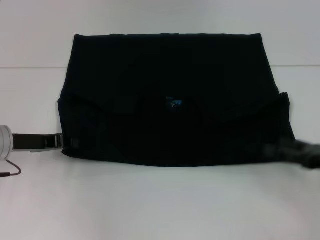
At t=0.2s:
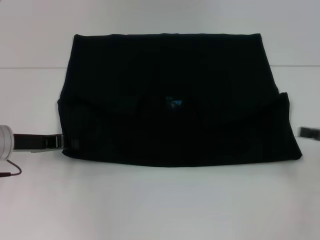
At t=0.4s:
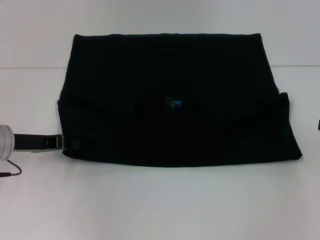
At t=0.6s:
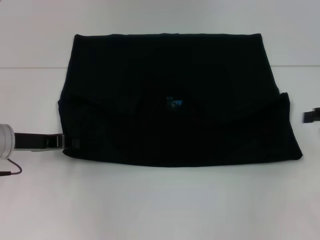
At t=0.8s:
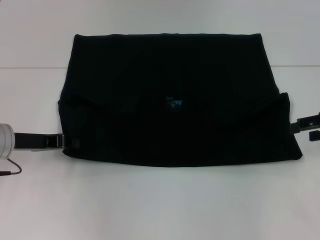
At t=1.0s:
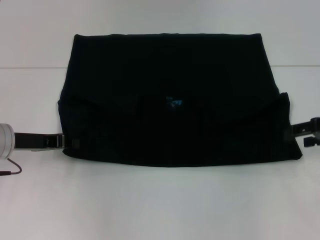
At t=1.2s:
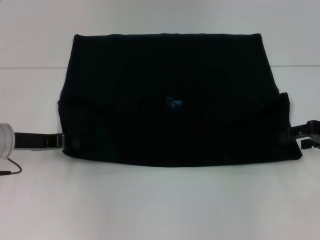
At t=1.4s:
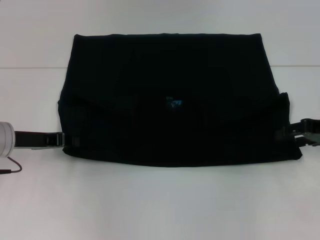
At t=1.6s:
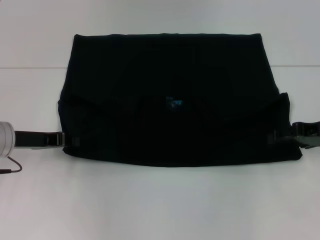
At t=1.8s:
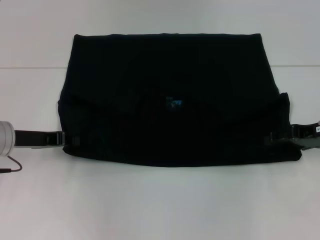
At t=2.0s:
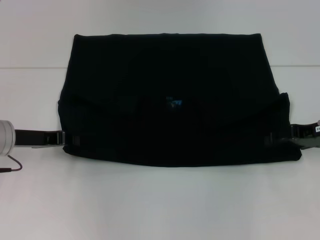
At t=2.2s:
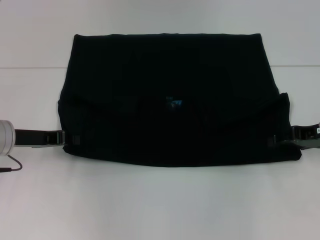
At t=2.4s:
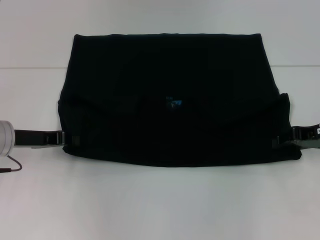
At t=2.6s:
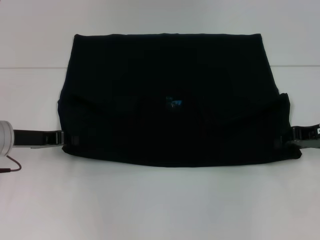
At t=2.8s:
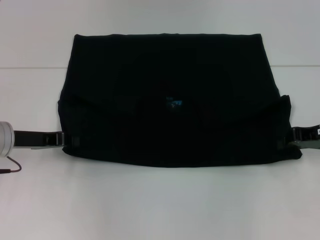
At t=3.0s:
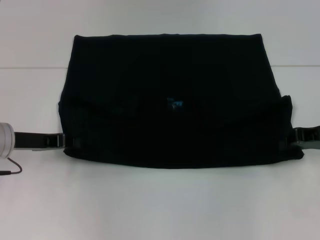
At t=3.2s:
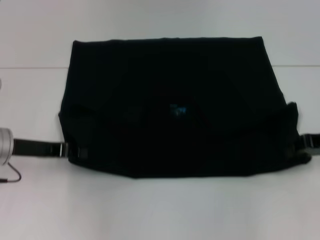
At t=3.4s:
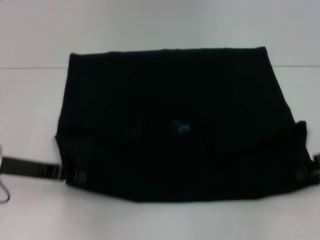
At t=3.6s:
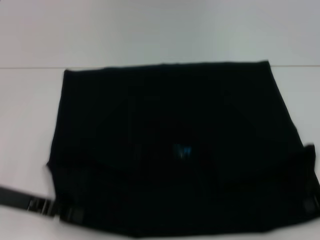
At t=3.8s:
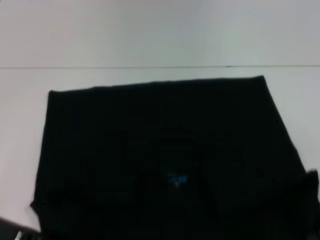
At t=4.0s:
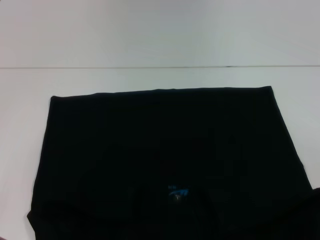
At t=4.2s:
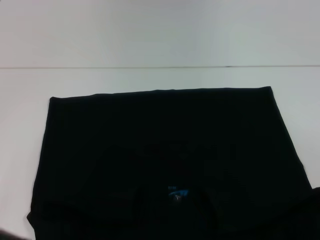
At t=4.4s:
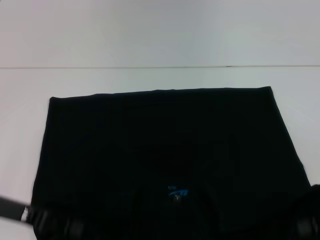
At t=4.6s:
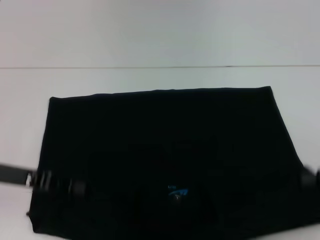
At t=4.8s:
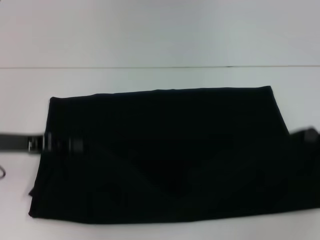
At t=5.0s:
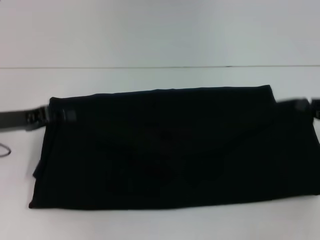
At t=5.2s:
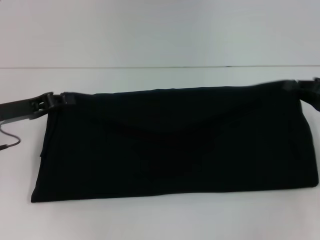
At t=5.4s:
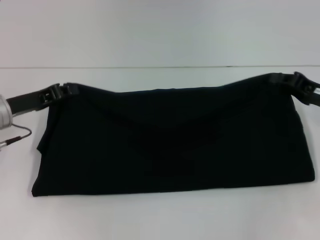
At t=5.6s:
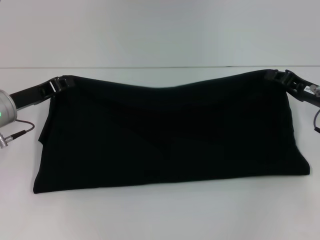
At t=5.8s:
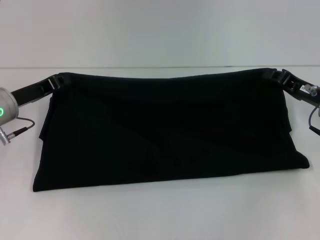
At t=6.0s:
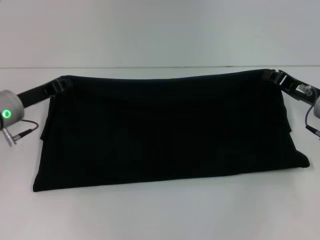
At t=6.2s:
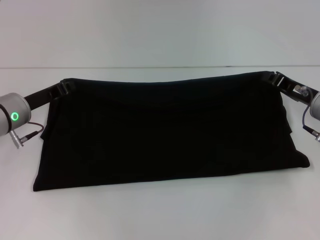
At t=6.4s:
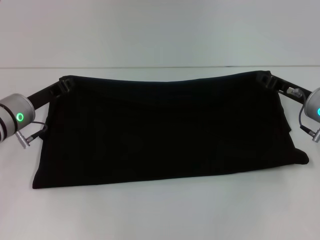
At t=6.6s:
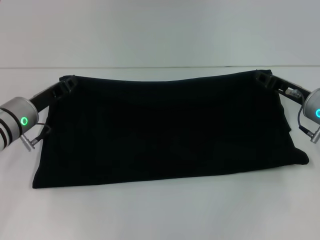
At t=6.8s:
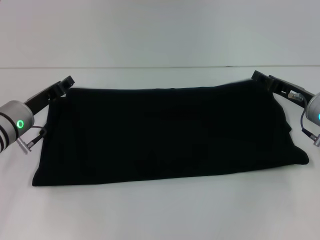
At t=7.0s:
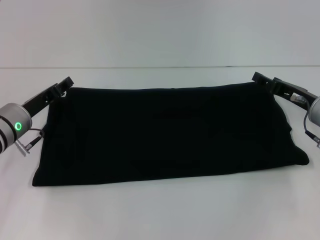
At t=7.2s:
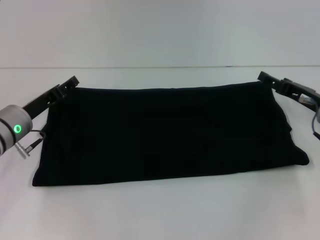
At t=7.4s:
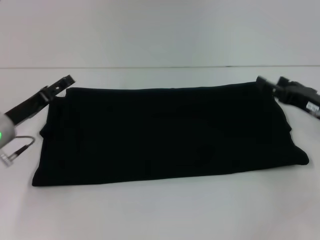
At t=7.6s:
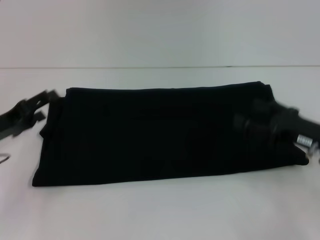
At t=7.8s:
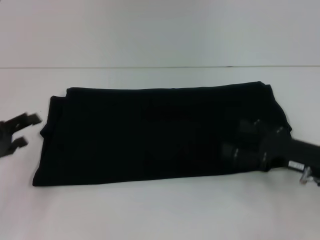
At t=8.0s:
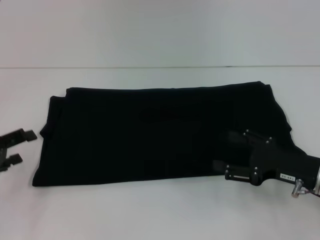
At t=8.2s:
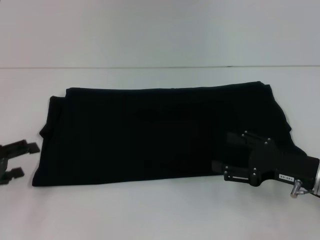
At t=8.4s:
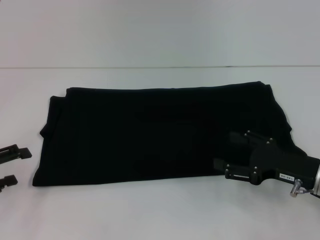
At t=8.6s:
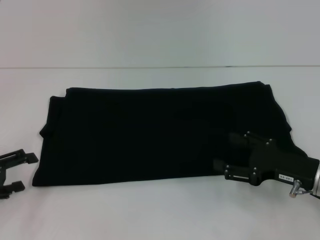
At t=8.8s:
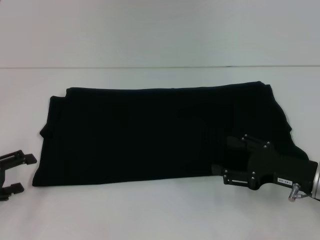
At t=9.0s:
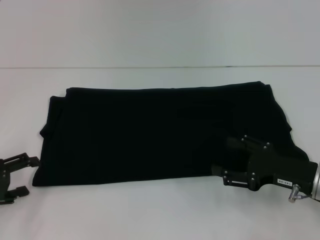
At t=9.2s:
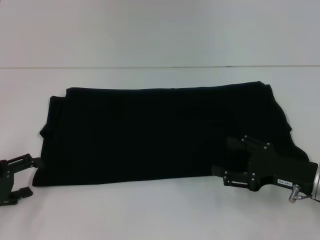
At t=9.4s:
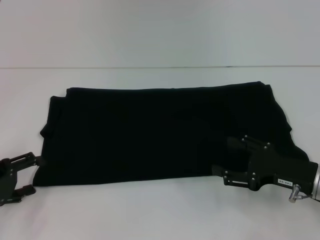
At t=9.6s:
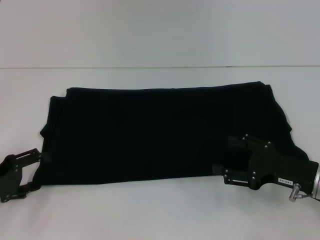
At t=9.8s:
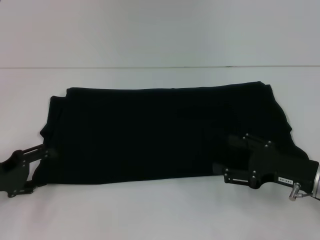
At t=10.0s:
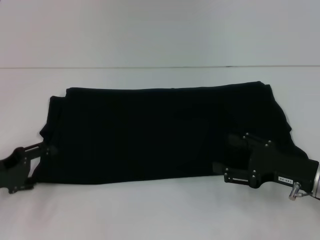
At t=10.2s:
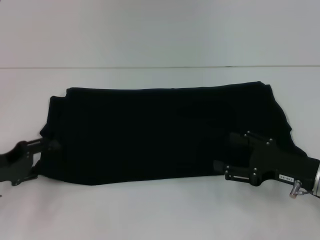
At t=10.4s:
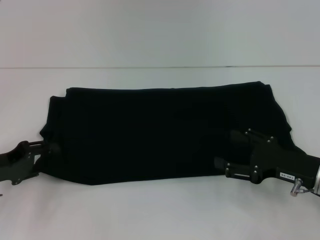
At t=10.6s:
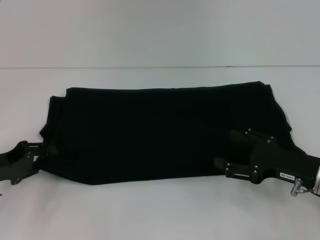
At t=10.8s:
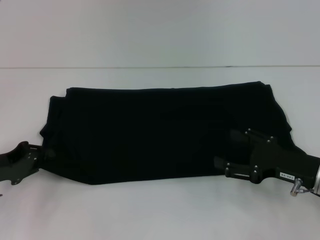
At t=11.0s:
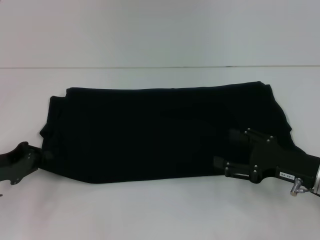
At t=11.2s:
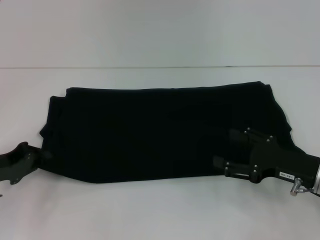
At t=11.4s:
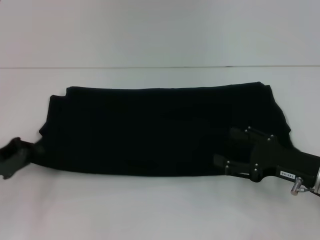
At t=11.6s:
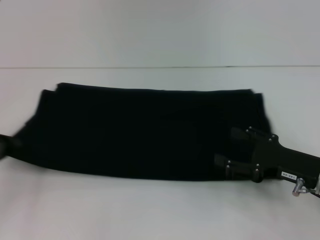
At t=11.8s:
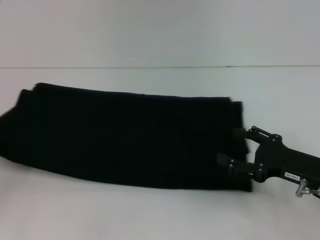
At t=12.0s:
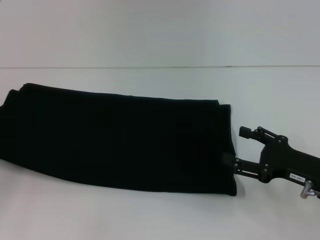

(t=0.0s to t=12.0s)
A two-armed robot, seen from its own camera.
Step, t=0.0s - t=4.0s: Pull the clothes with your left hand.
Step, t=0.0s - t=4.0s: Pull the clothes with your right hand.
Step, t=4.2s - t=7.2s: Fold the clothes with your right hand.
t=0.0s - t=1.6s: The right gripper heads forward, covering roughly 10 cm.
t=1.6s - t=3.0s: The right gripper closes its fingers.
t=3.0s - t=4.4s: The grippers both shift backward by roughly 10 cm.
t=4.4s - t=6.0s: The left gripper heads forward, covering some 10 cm; the right gripper goes some 15 cm forward and to the left.
t=6.0s - t=7.6s: The two grippers go approximately 5 cm backward. The left gripper opens its fingers, while the right gripper opens its fingers.
t=7.6s - t=9.0s: The left gripper shifts about 5 cm backward.
t=9.0s - t=10.4s: The grippers stay close to where they were, moving slightly.
t=10.4s - t=12.0s: The left gripper travels to the left by some 10 cm, and closes its fingers.

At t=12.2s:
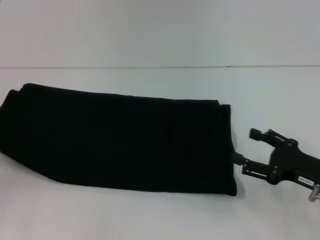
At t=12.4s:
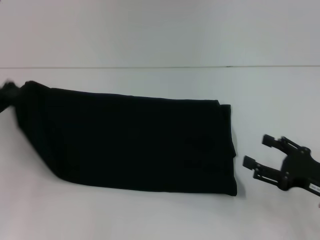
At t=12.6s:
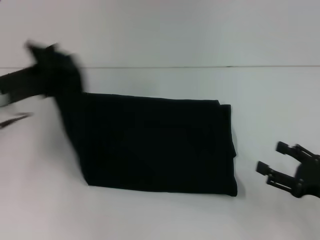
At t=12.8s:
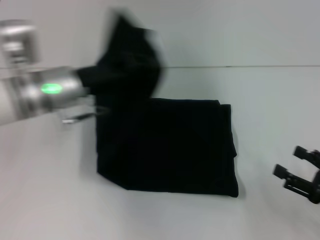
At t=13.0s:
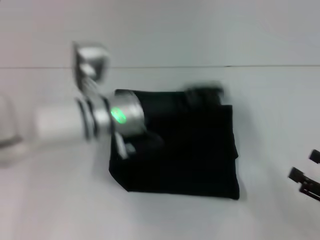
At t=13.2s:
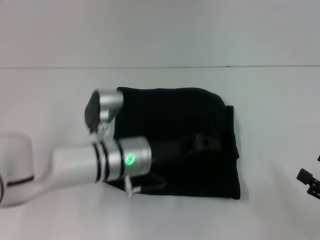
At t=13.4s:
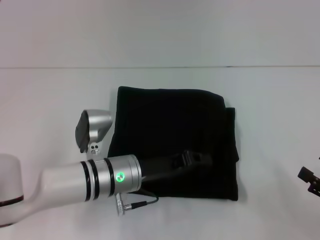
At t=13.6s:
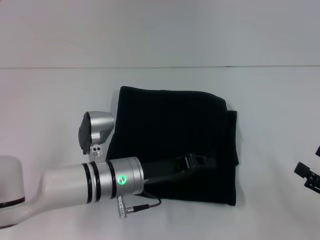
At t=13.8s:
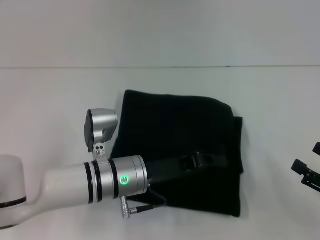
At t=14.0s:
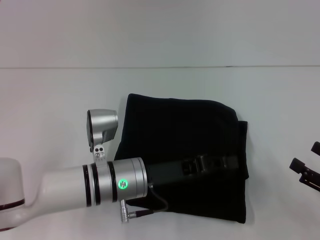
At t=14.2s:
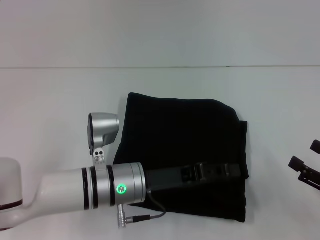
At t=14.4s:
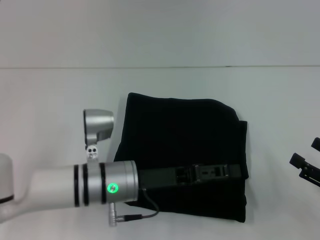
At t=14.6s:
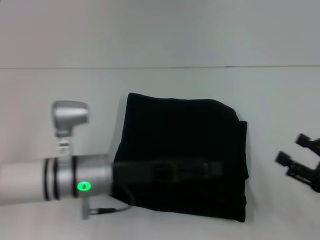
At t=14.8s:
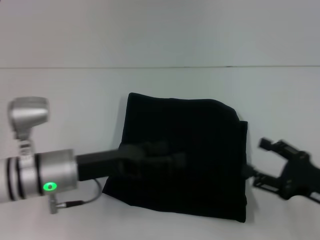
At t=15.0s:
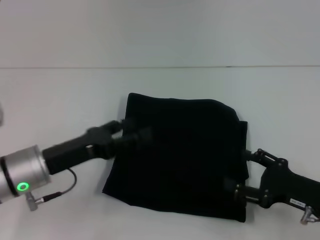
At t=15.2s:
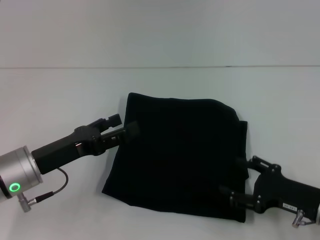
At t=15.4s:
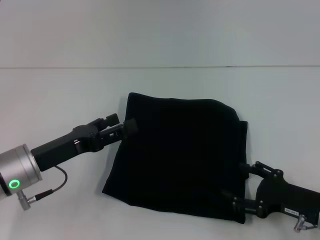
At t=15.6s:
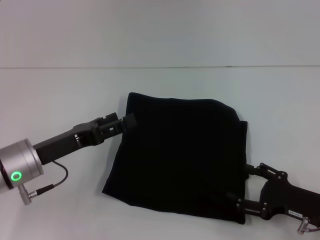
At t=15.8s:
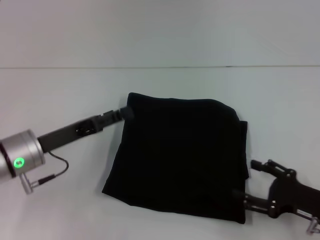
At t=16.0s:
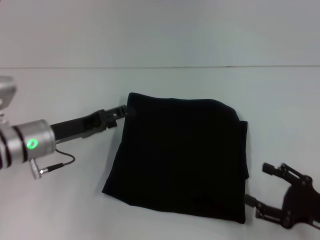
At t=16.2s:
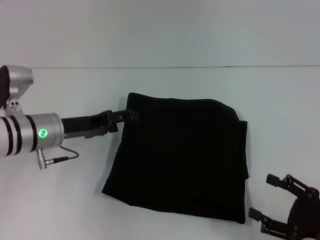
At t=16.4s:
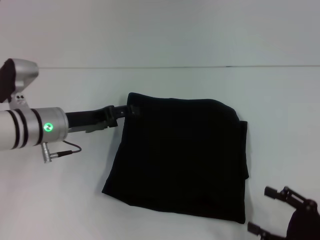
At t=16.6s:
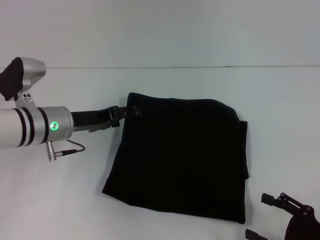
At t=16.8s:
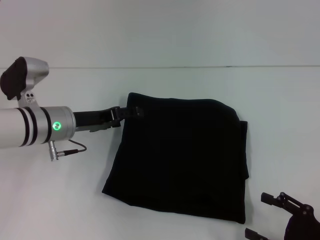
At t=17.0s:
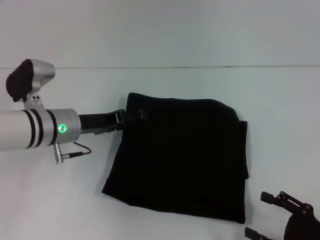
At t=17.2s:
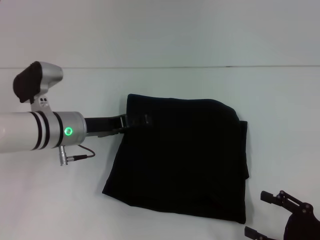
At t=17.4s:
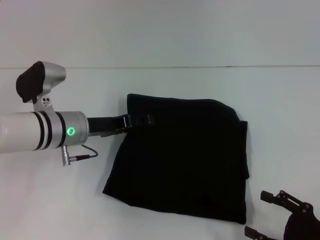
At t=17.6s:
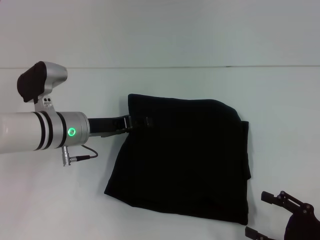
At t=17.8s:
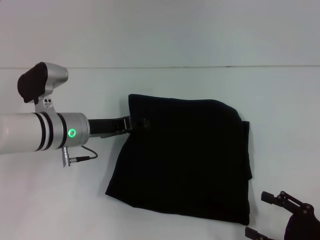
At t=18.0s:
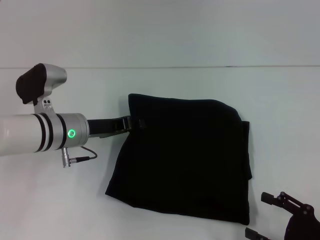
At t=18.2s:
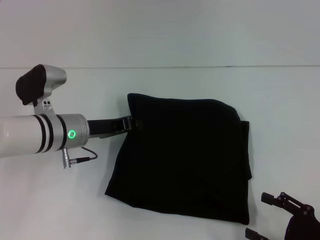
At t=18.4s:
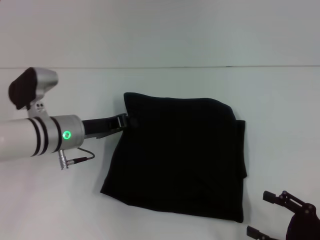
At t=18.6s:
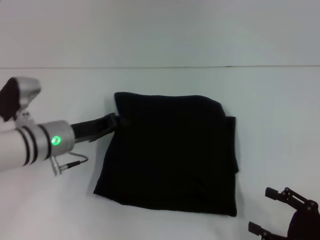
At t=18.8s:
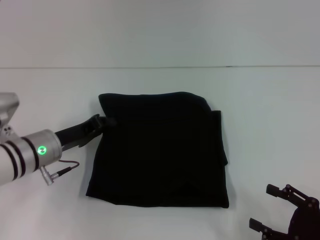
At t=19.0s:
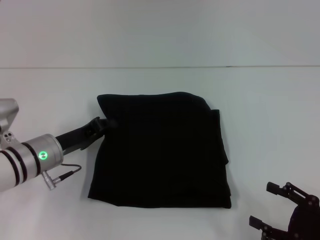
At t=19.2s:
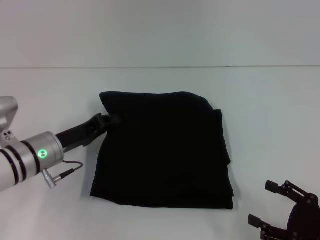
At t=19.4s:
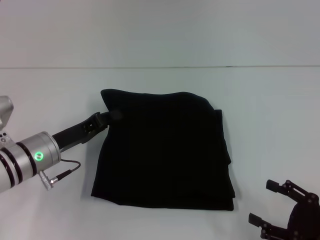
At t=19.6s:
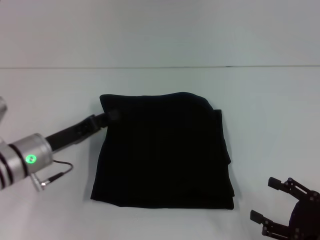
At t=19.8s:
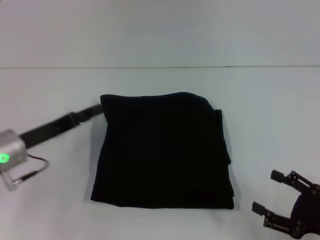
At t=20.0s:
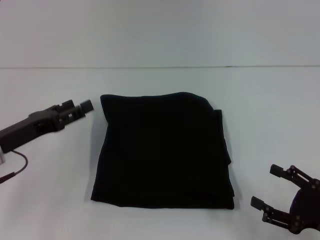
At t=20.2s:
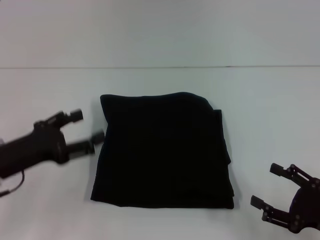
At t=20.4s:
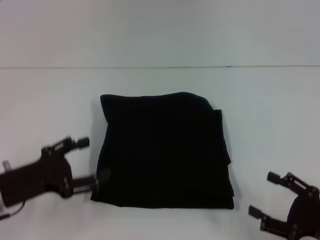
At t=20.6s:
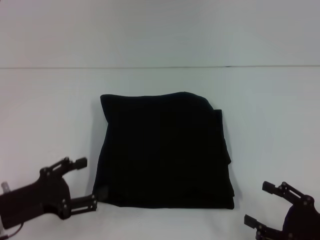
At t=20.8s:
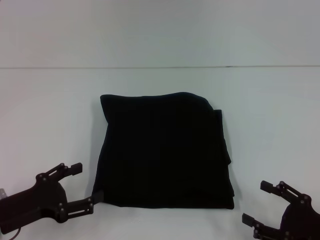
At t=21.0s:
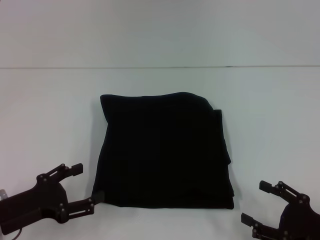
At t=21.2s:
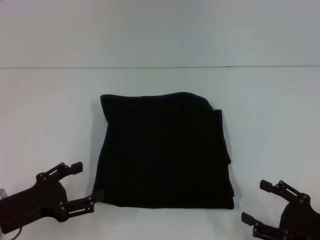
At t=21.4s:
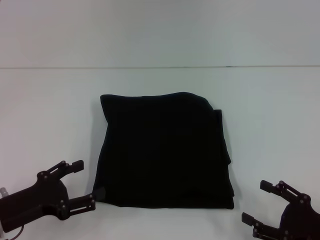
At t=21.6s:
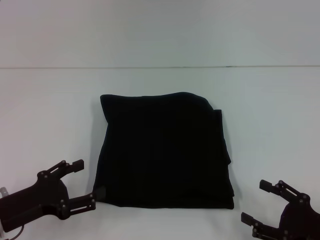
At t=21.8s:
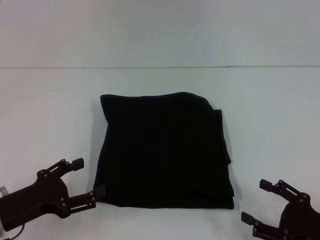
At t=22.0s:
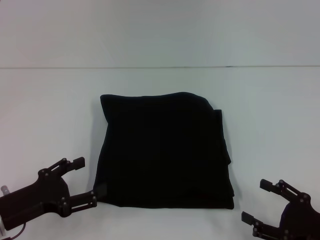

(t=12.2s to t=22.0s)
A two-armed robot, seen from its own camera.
Step, t=12.2s - t=14.2s: Fold the clothes with your left hand.
t=12.2s - t=13.6s: The right gripper moves to the right and backward, about 10 cm, while the left gripper moves to the right, about 30 cm.
t=13.6s - t=15.0s: The left gripper shifts roughly 10 cm to the left, and opens up, while the right gripper is displaced to the left by roughly 10 cm.
t=15.0s - t=16.4s: The right gripper shifts roughly 5 cm backward. Meanwhile the left gripper heads forward, covering about 10 cm.
t=16.4s - t=17.8s: The grippers stay close to where they were, moving slightly.
t=17.8s - t=19.2s: The left gripper moves about 5 cm, and closes.
t=19.2s - t=20.6s: The left gripper travels backward and to the left by approximately 10 cm, and opens up.
t=20.6s - t=22.0s: The grippers move only a little.
